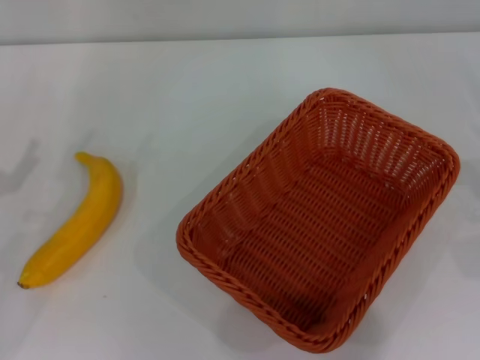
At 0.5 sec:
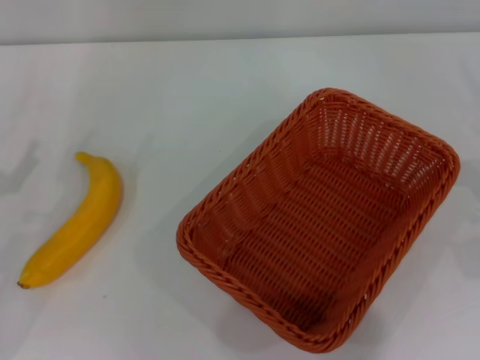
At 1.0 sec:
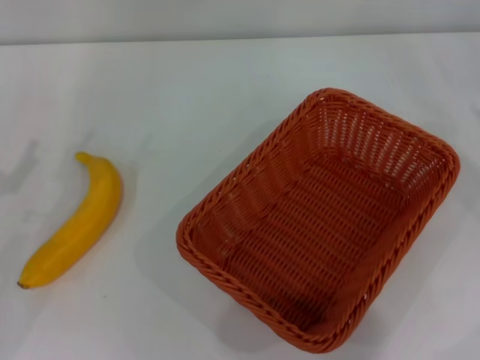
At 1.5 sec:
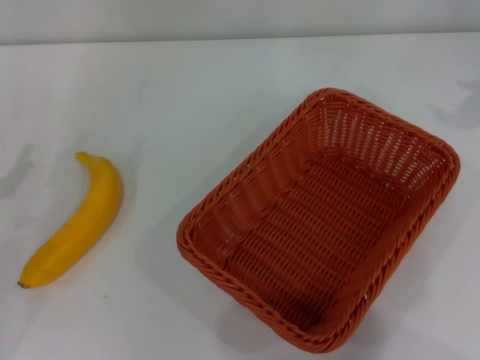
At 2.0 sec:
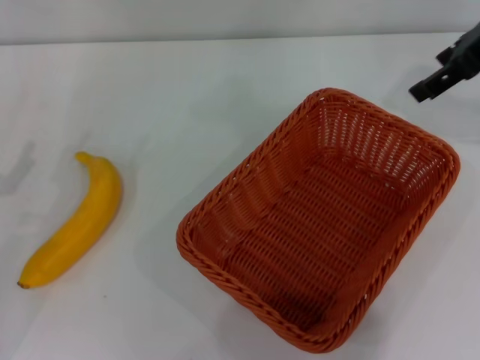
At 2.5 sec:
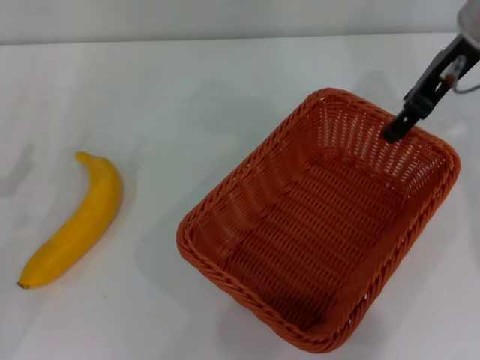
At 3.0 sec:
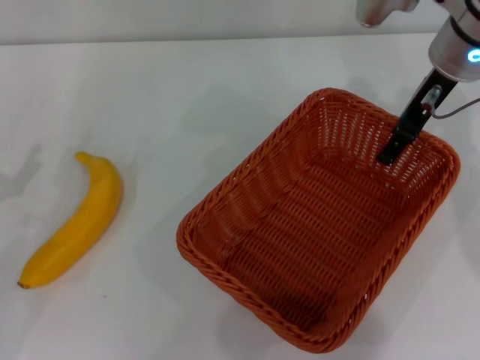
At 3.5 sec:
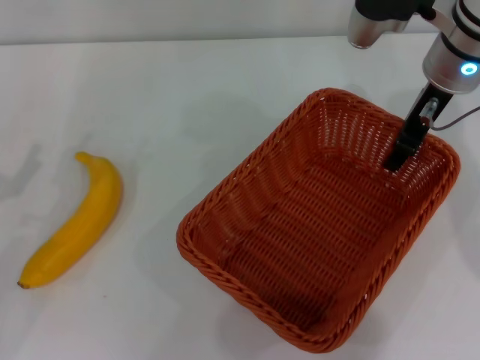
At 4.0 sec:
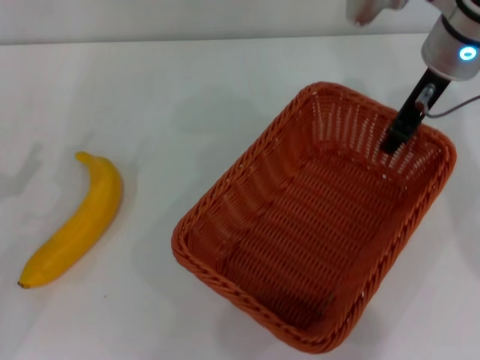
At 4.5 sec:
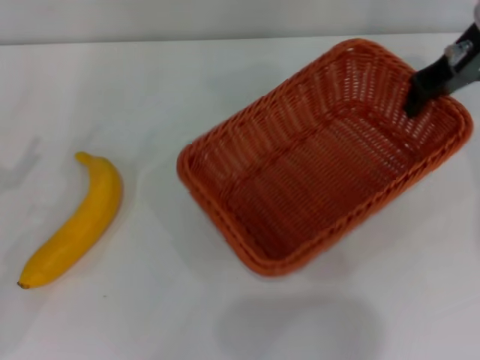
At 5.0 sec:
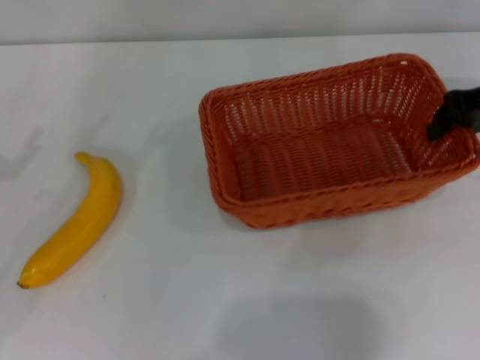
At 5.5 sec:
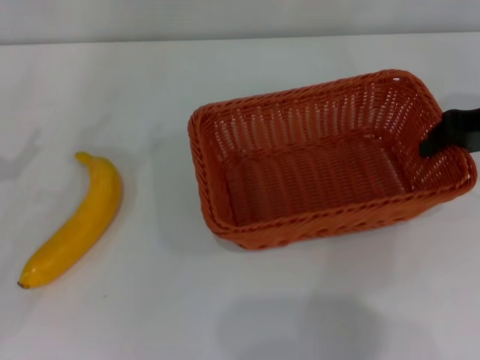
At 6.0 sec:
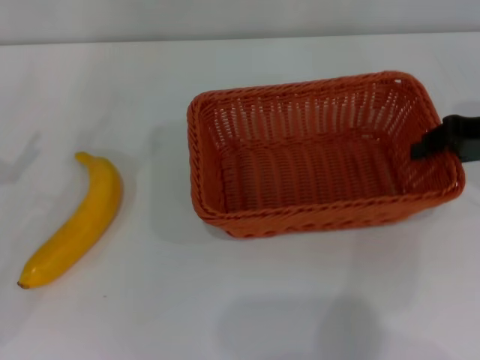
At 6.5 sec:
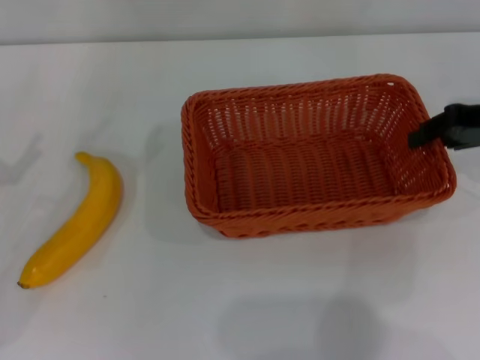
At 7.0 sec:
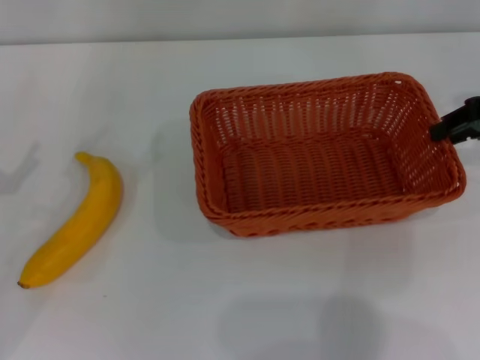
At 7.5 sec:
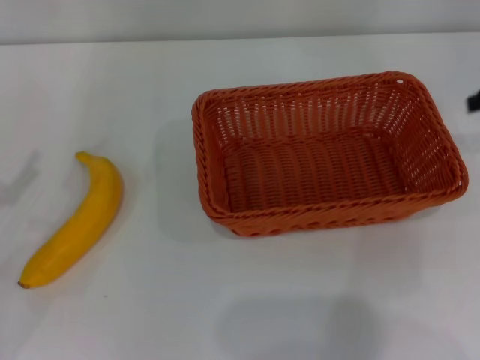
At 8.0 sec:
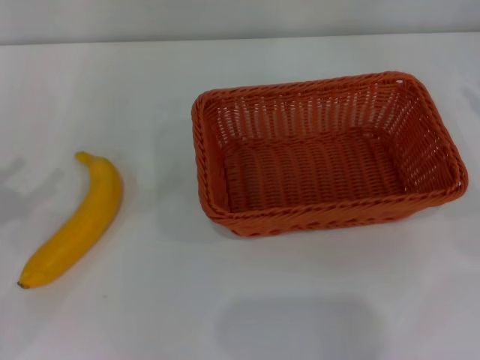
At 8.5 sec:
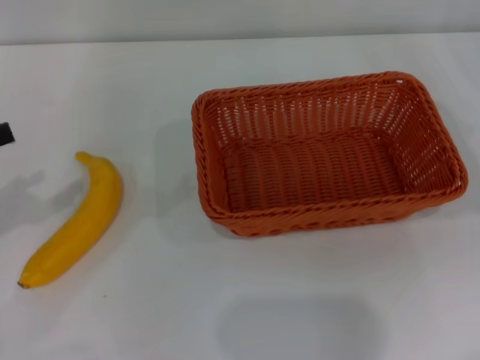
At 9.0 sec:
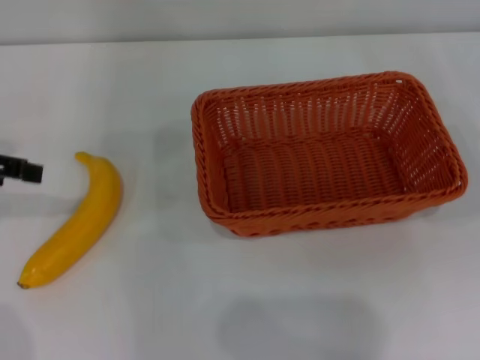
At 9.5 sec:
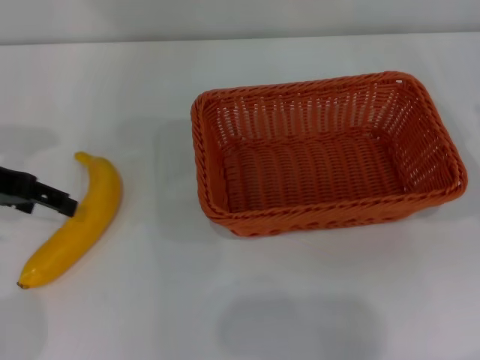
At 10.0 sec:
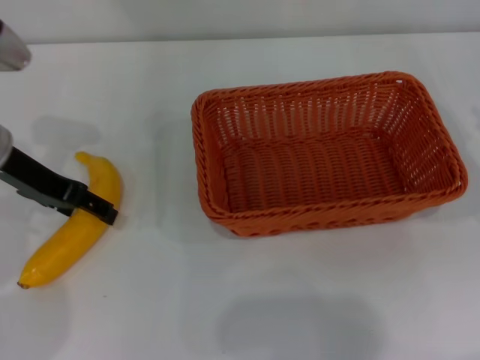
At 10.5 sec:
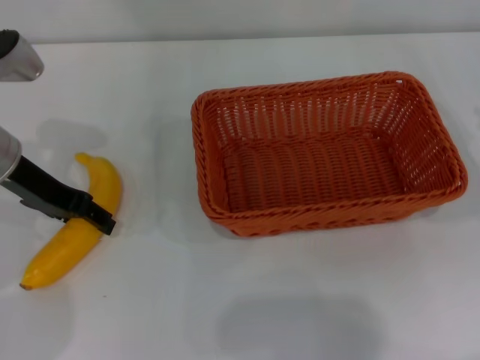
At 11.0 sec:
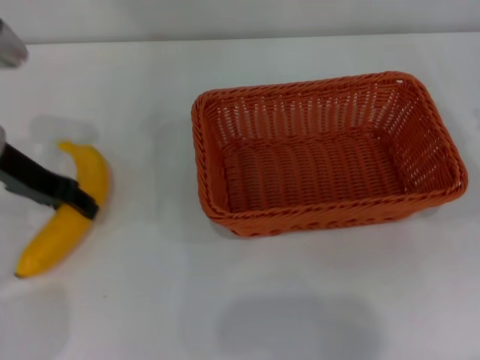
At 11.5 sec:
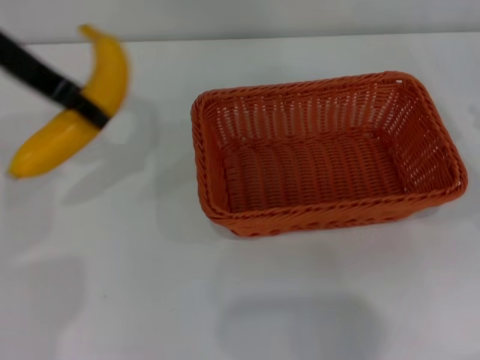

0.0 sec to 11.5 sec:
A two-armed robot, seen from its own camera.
Step, 0.0 sec to 4.0 sec: Pick up the light basket with the right gripper.
Step, 4.5 sec to 6.5 sec: Place the light basket in the center of view with the right gripper.
Step, 7.0 sec to 11.0 sec: Pick up the banana with the left gripper.
0.0 sec to 2.0 sec: The right gripper moves upward, to the left and forward, approximately 30 cm.
2.0 sec to 4.0 sec: The right gripper shifts some 10 cm to the left and downward, and closes.
4.0 sec to 6.0 sec: The right gripper is displaced to the right and backward by some 15 cm.
6.0 sec to 7.5 sec: The right gripper travels upward by about 5 cm.
7.5 sec to 9.5 sec: The left gripper goes about 15 cm forward, upward and to the right.
9.5 sec to 11.5 sec: The left gripper travels upward and to the right by about 15 cm, and closes its fingers.

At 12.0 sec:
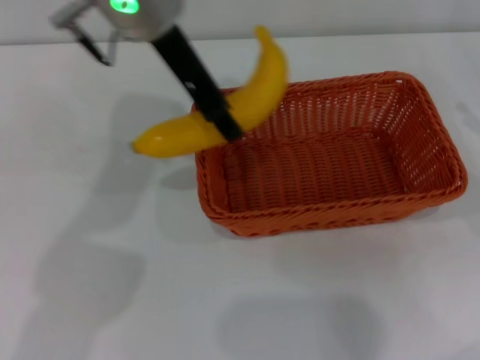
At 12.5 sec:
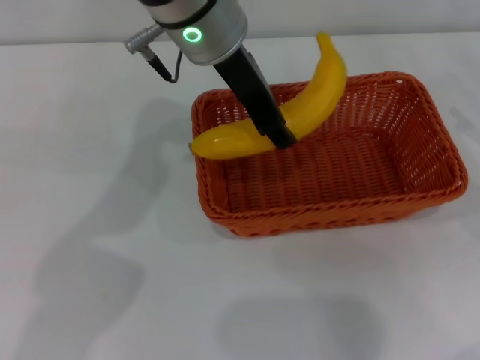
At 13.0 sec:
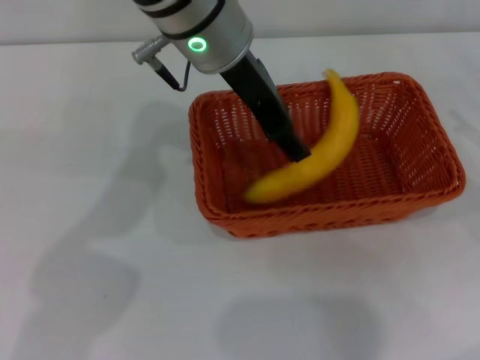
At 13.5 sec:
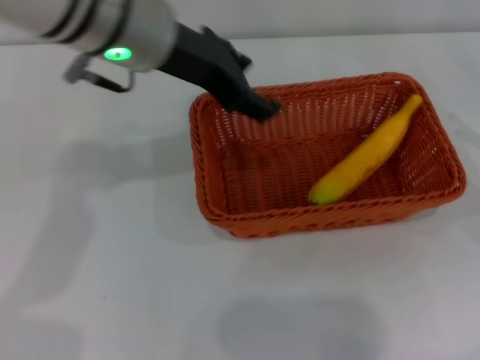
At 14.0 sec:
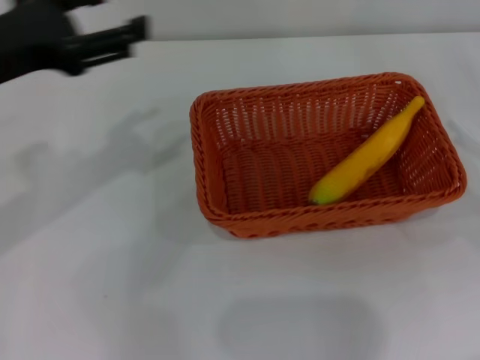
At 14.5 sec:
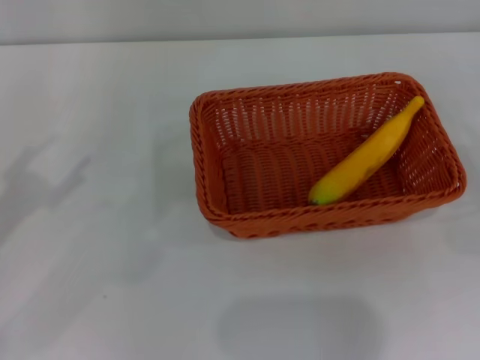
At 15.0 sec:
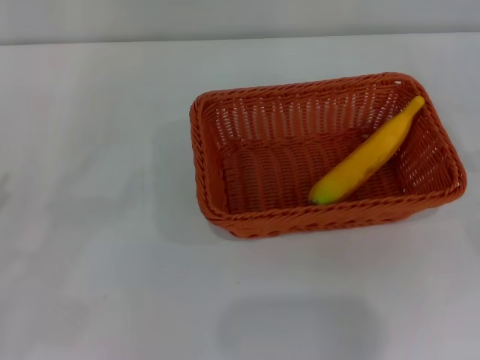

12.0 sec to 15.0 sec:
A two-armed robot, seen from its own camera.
Step, 12.0 sec to 13.0 sec: Place the banana into the light basket with the left gripper.
12.0 sec to 13.5 sec: The left gripper ends up roughly 5 cm from where it was, and opens.
13.5 sec to 15.0 sec: The right gripper shifts by some 5 cm, while the left gripper goes approximately 35 cm to the left, backward and downward.
